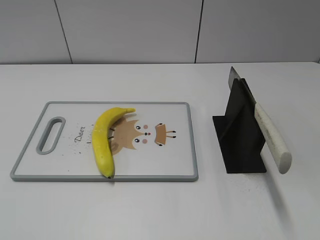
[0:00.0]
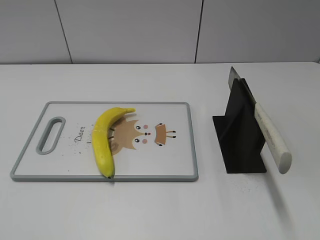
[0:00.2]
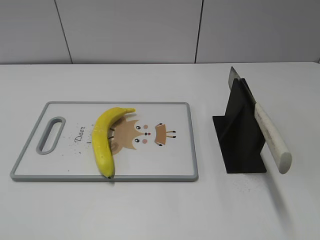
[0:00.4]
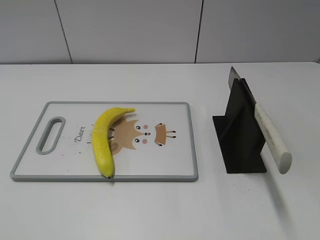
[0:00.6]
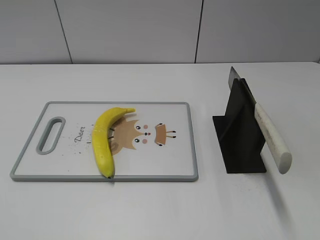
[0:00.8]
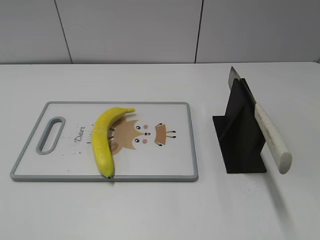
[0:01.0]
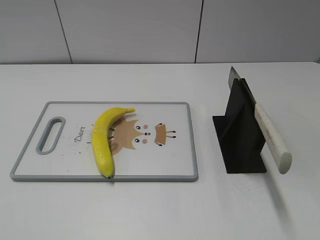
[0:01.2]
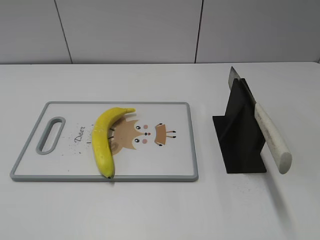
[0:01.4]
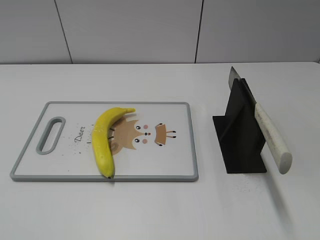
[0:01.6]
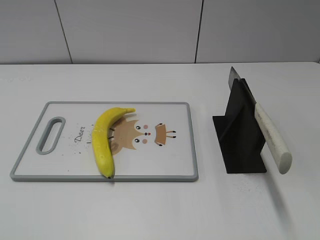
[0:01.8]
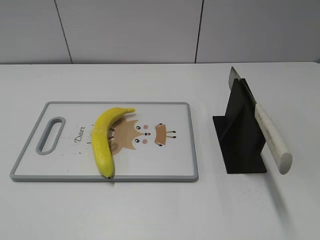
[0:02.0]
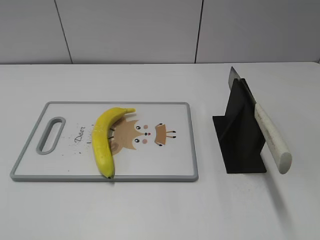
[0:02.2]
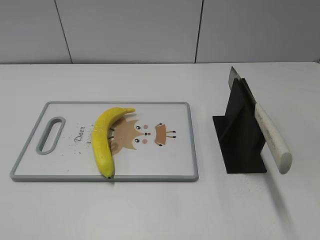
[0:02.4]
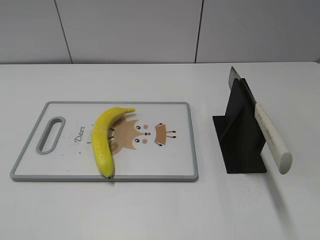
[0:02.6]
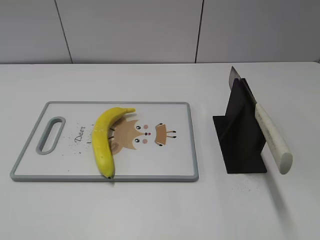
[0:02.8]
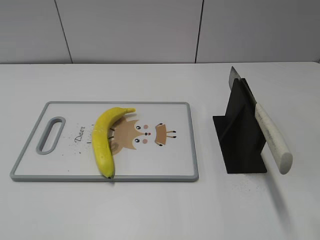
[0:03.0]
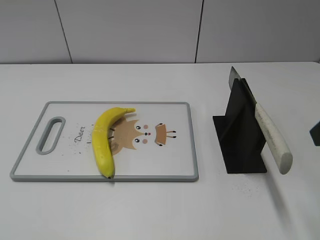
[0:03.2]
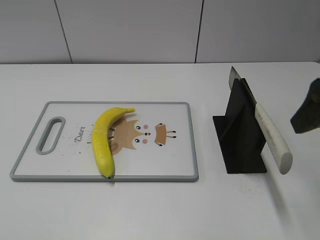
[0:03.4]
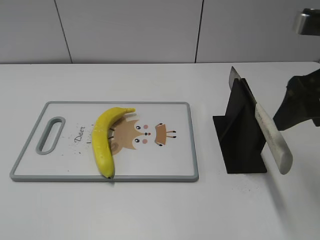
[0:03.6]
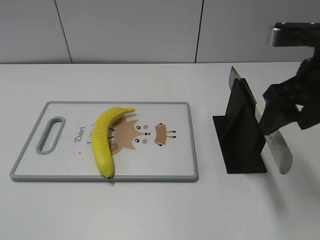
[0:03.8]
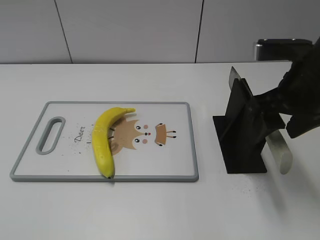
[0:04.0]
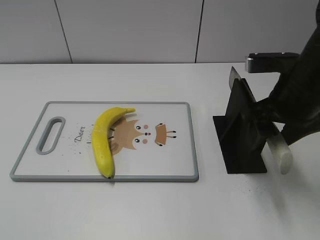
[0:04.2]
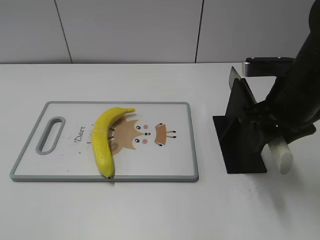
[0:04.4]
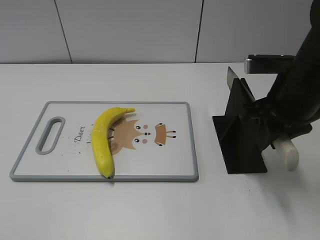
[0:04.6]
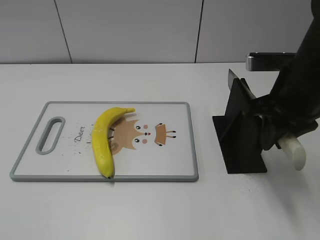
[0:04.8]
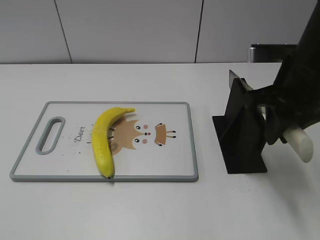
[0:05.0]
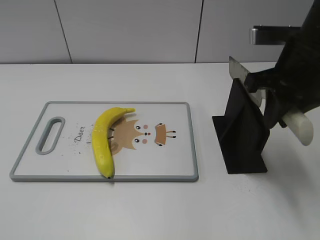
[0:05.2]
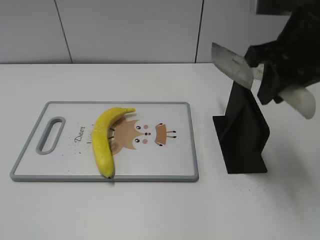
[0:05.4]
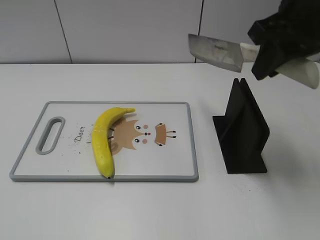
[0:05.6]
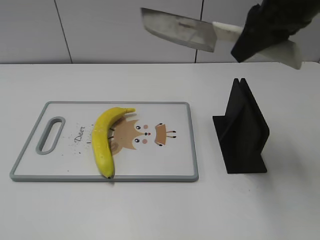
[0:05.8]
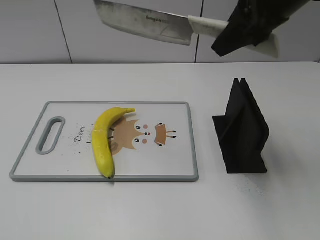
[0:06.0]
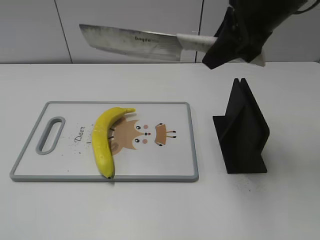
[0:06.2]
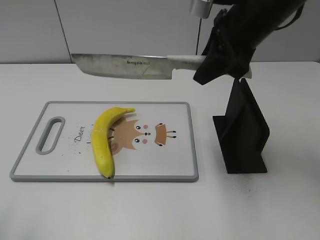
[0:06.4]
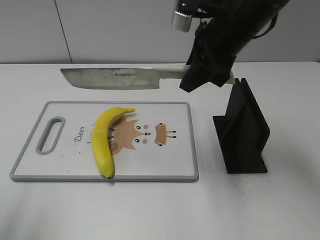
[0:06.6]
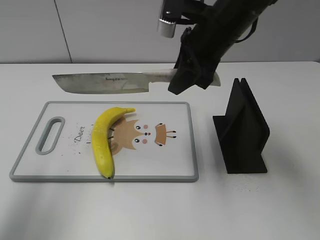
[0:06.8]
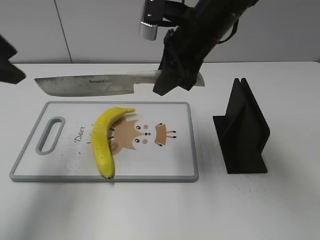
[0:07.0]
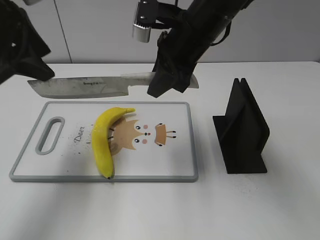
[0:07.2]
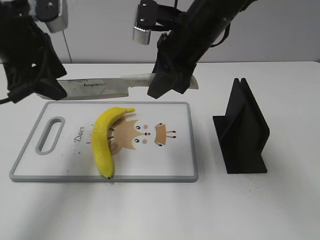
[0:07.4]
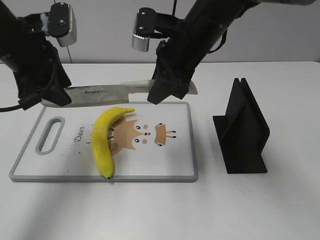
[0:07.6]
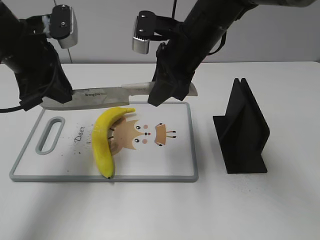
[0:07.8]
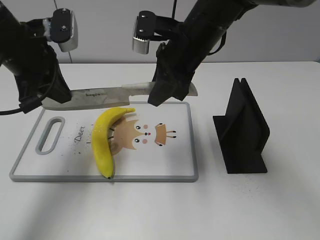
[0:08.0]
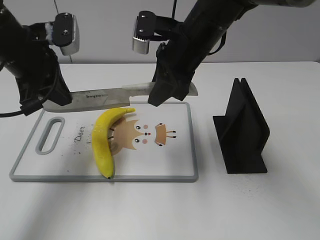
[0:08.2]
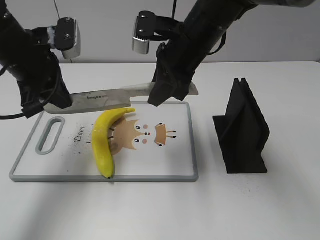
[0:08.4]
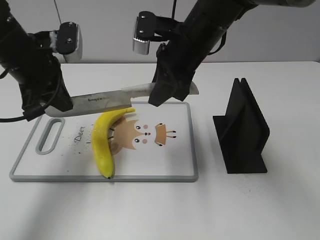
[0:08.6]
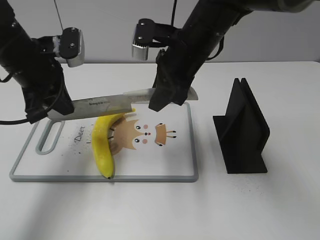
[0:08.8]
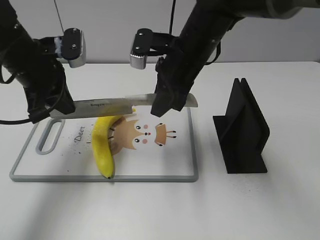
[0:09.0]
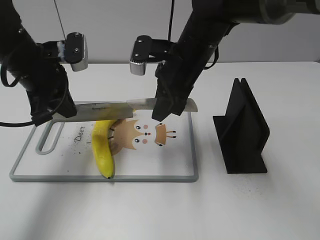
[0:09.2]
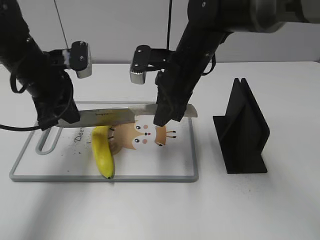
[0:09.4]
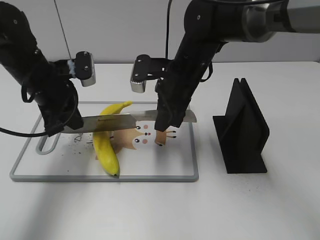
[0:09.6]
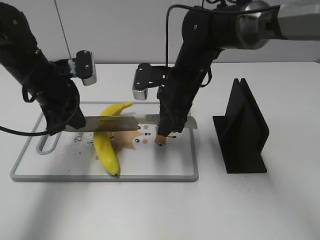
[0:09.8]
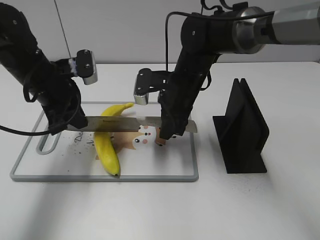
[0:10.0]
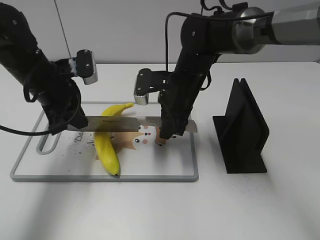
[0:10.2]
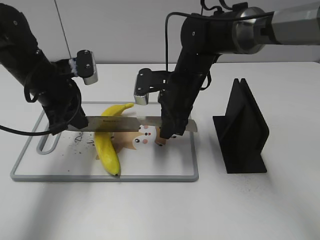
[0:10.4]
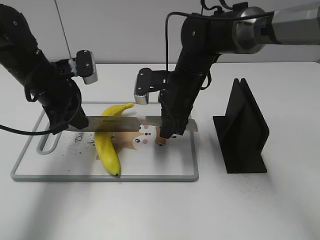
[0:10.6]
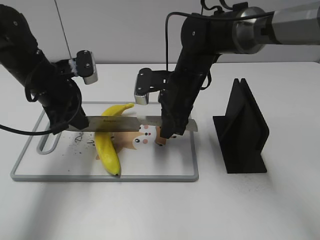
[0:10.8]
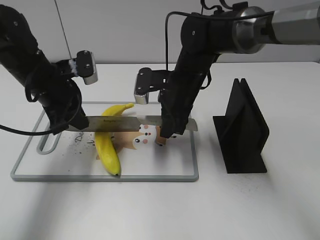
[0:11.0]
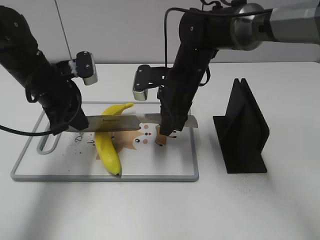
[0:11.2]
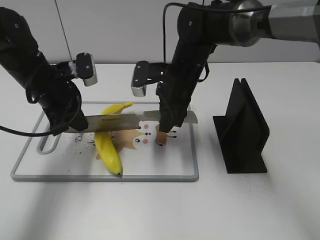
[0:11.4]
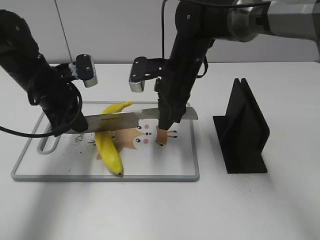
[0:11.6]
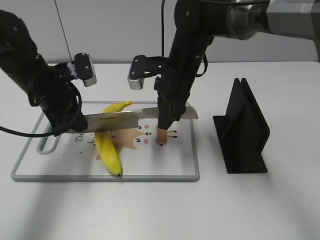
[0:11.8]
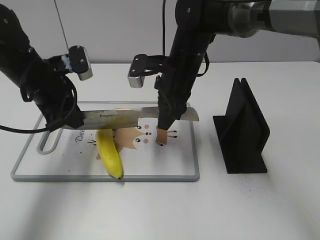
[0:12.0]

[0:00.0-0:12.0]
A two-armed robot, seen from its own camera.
Task of the whole recording: cut plastic banana.
Step, 0:00.0 to 0:05.4: Grab the knife handle with your right hand.
Step, 0:05.8 to 0:10.2: Lift the knife with your right hand.
0:03.0 to 0:04.4: The right gripper is displaced forward, downward and to the left by about 15 cm, and closes up.
0:04.4 to 0:06.0: The right gripper heads upward, covering roughly 10 cm.
0:06.0 to 0:07.6: The left gripper moves forward, about 30 cm; the right gripper goes approximately 15 cm downward and to the left.
0:07.6 to 0:09.0: The left gripper closes up.
0:09.0 to 0:10.4: The two grippers go some 5 cm downward.
0:10.4 to 0:12.0: The left gripper opens its fingers.

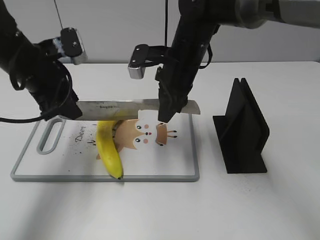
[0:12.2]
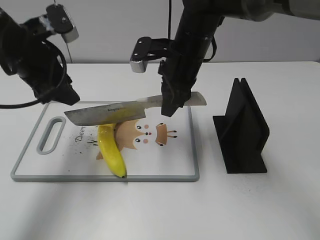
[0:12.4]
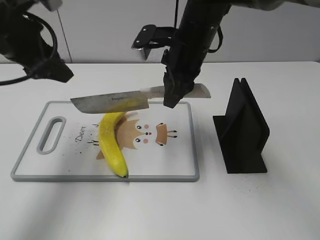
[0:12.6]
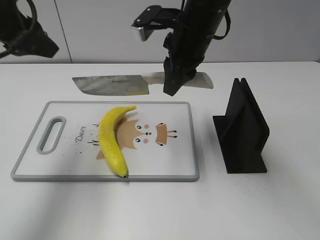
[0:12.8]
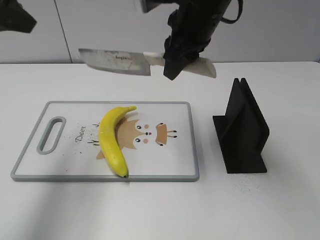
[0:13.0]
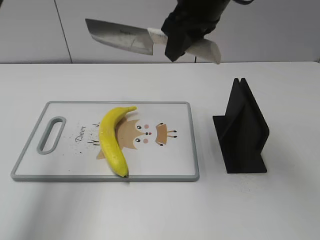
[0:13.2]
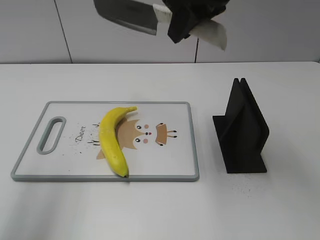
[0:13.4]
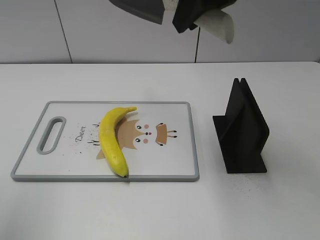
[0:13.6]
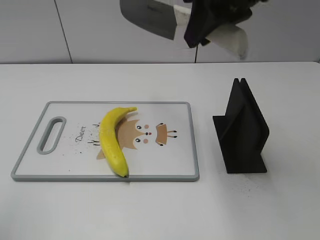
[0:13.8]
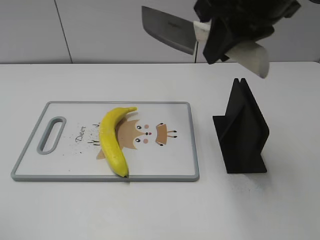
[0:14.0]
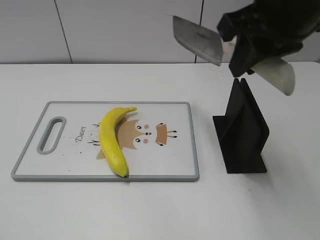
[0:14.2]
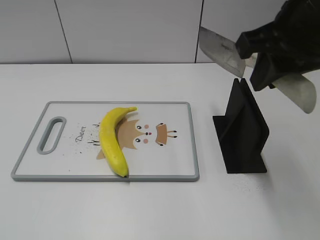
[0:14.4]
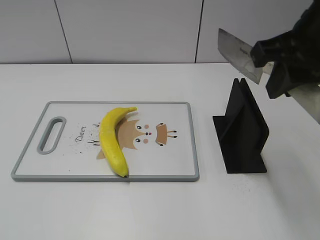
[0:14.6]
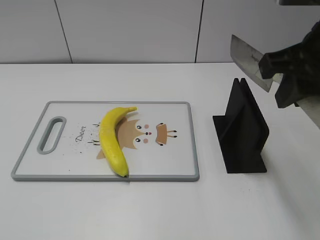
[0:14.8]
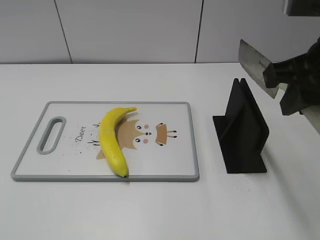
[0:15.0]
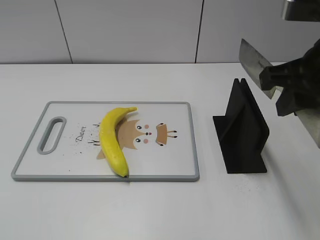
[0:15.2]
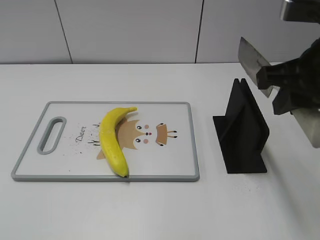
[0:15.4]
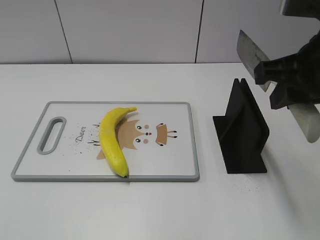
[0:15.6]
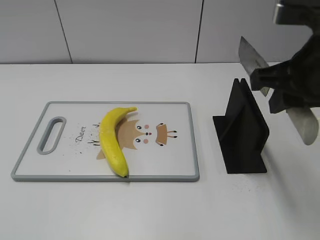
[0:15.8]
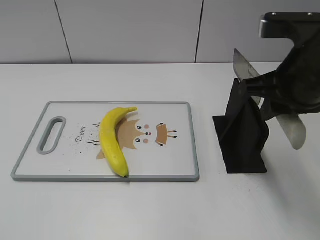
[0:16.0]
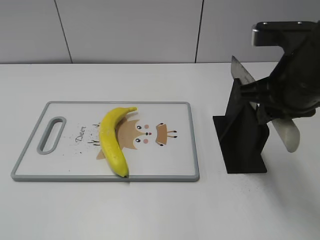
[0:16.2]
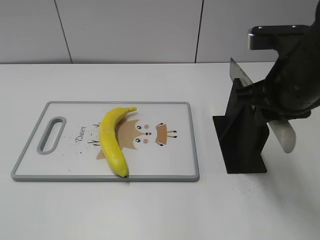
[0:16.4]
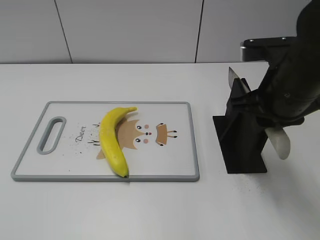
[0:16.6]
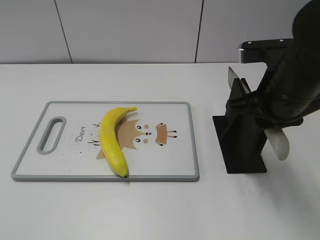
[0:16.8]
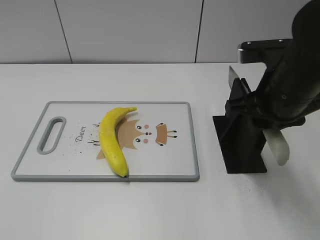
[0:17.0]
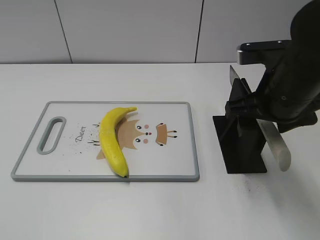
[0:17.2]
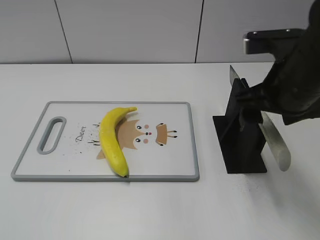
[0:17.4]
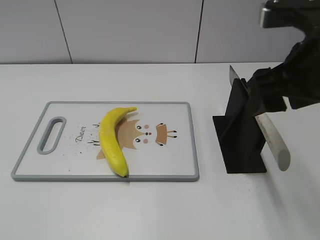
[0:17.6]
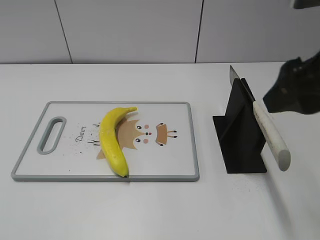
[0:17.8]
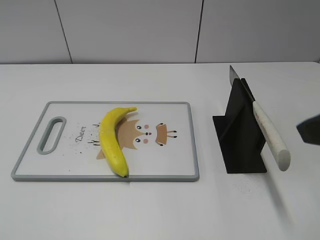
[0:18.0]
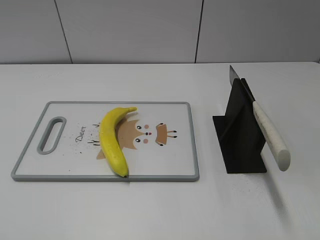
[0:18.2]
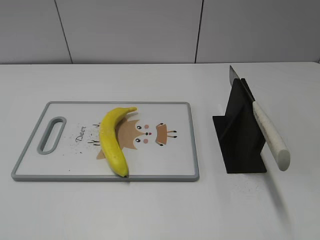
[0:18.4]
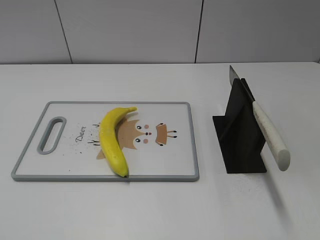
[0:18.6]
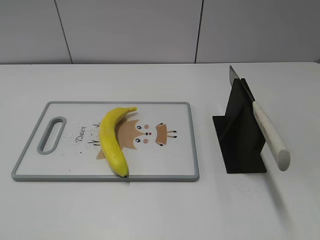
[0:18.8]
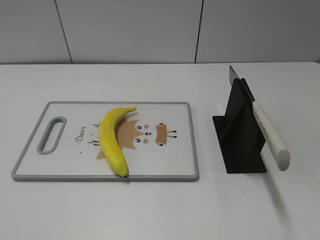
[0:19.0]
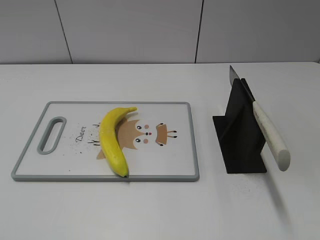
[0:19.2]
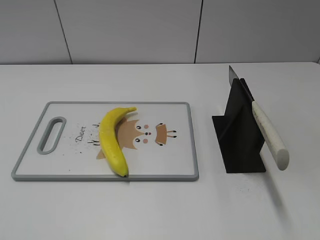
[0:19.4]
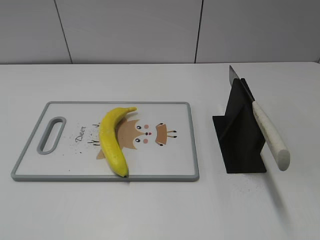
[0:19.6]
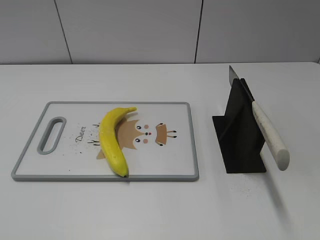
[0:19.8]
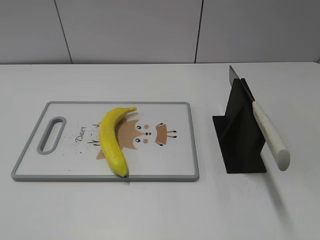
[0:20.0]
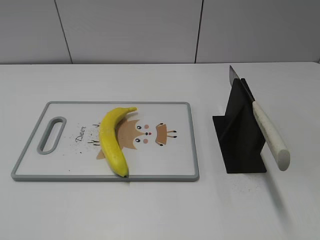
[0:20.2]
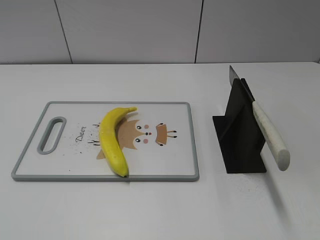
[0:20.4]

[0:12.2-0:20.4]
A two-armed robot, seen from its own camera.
Task of the whole recording: cut plastic banana.
Step, 0:13.2 to 0:15.4: Lift the knife with your right hand.
Step, 0:15.6 to 0:20.4: Place the knife on the storage rack with your right hand.
0:12.2 to 0:13.8: The left gripper travels backward, upward and to the left by roughly 30 cm, while the right gripper travels upward and backward by roughly 20 cm.
0:13.8 to 0:15.4: The left gripper is displaced backward and downward by approximately 15 cm, while the right gripper shifts approximately 10 cm to the right, backward and downward.
0:15.4 to 0:17.2: The right gripper travels downward by roughly 5 cm, and opens its fingers.
0:17.2 to 0:18.8: The right gripper moves backward and to the right, about 25 cm.

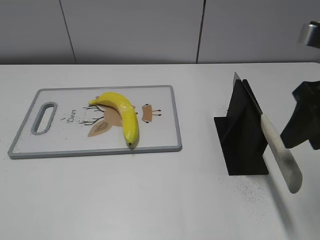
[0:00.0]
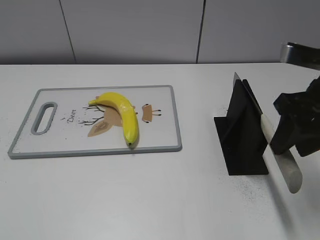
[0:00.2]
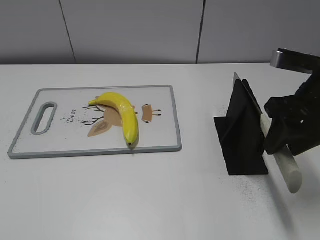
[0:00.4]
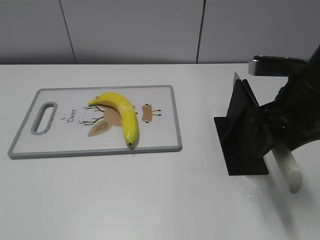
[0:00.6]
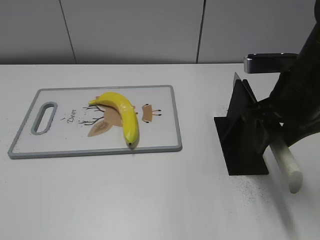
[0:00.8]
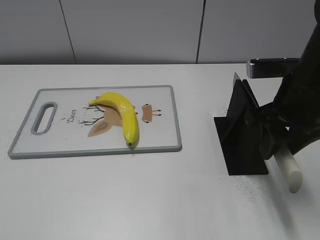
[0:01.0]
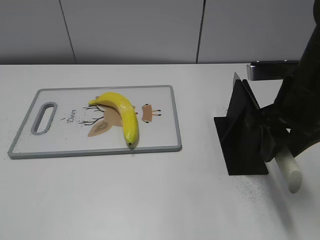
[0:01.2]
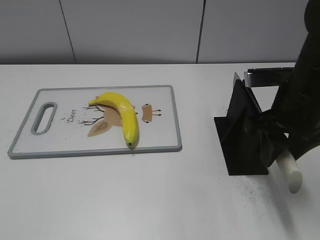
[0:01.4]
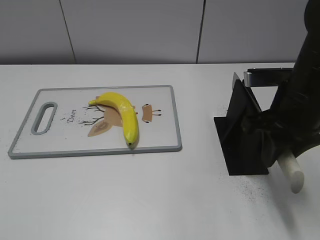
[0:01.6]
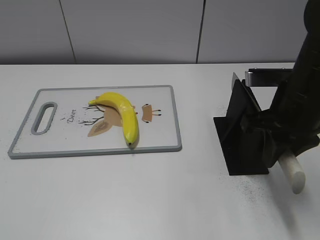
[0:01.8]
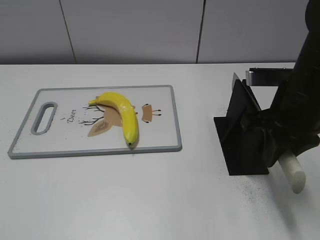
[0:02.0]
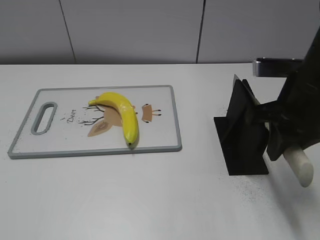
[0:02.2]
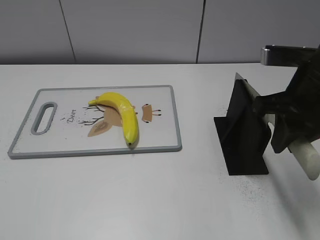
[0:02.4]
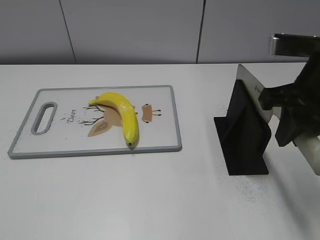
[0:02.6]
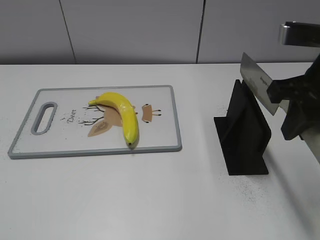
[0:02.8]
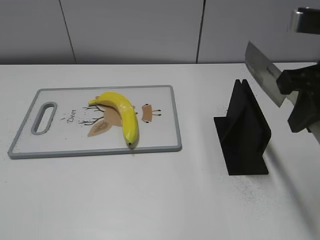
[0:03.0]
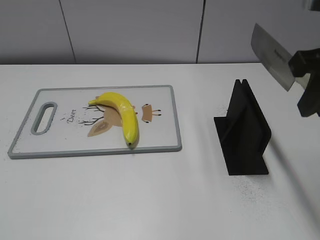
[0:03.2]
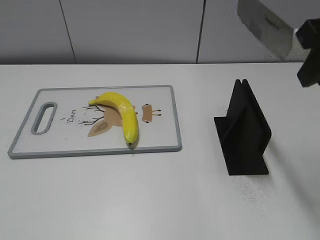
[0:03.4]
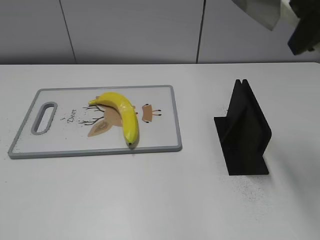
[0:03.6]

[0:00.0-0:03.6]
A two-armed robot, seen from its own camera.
Task of the whole recording: cut plastic banana.
Step, 0:00.0 to 0:03.4: Grab the knife handle with your right hand.
0:00.0 to 0:01.8: The right gripper heads downward, covering about 5 cm, and closes its fingers.
0:01.8 to 0:03.6: The right gripper shifts approximately 15 cm upward.
